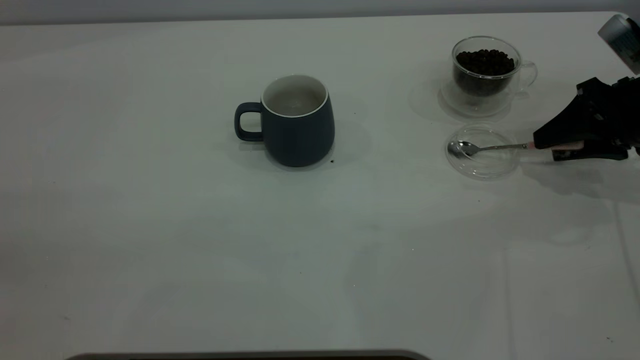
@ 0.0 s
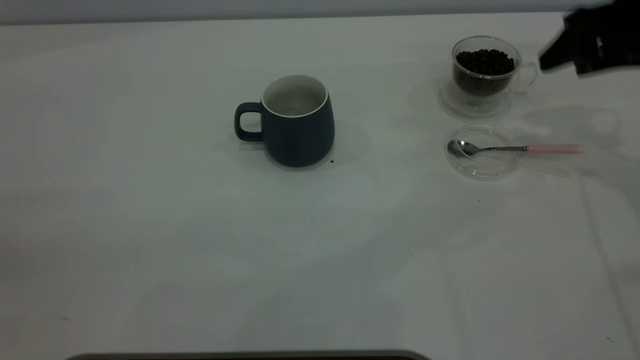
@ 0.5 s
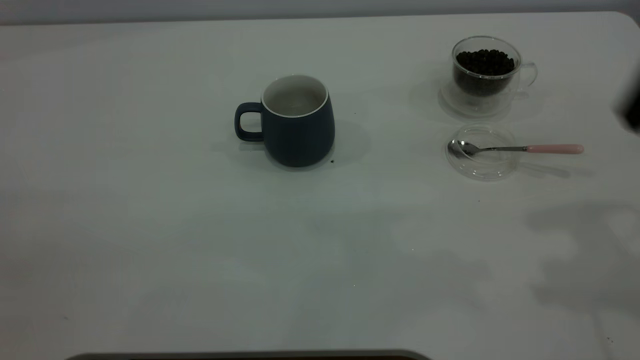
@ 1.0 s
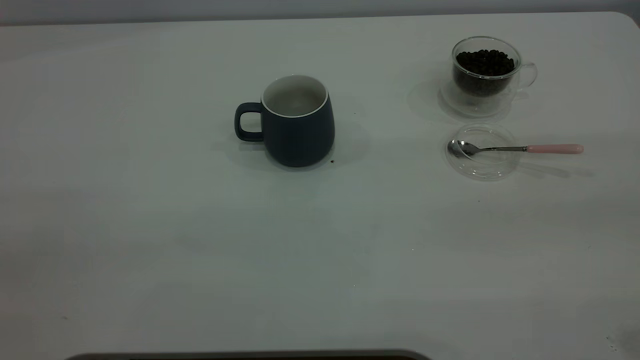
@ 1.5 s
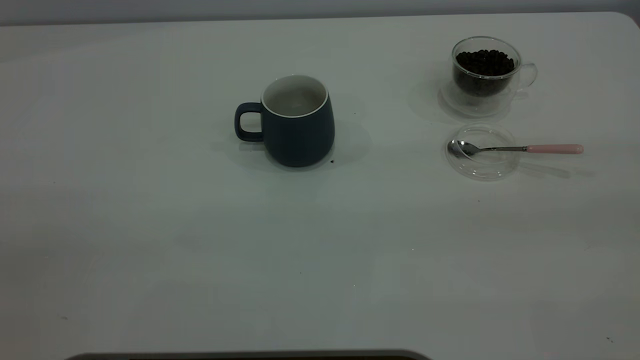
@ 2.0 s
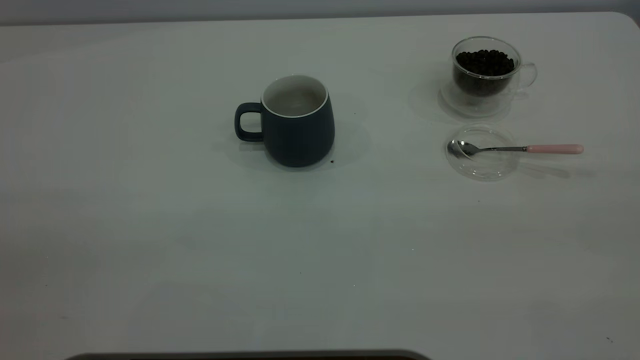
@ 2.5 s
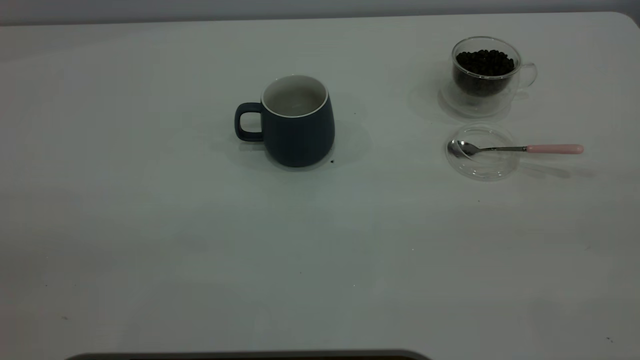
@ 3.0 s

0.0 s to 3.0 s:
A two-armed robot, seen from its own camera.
Task of the whole recording: the left gripper place the grey cup in the center of the table, the right gripper take the pink spoon from the cup lid and scoop out the coffee beans from the coffee cup and put them into the grey cup, the right gripper put the spoon back into the cup lid.
0.0 to 1.5 s: The right gripper moves backward and upward, some 35 cm.
